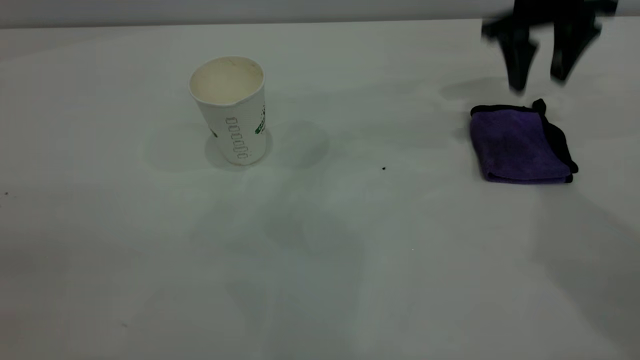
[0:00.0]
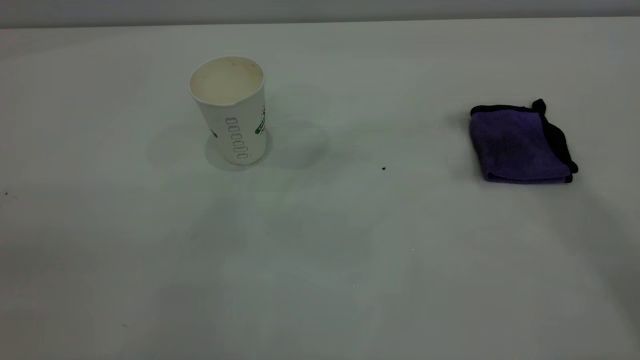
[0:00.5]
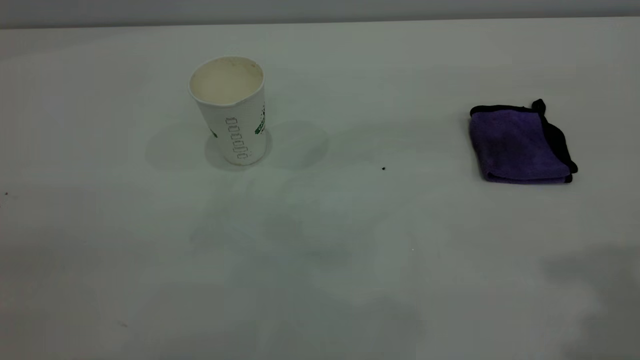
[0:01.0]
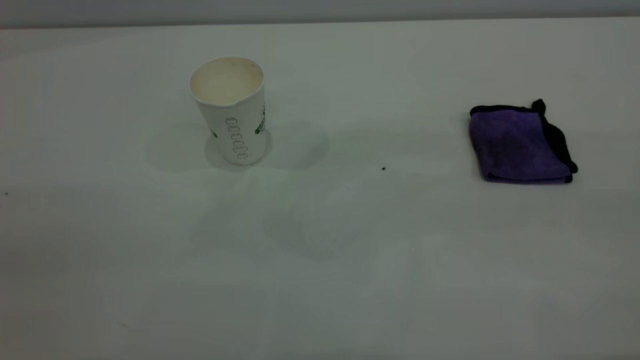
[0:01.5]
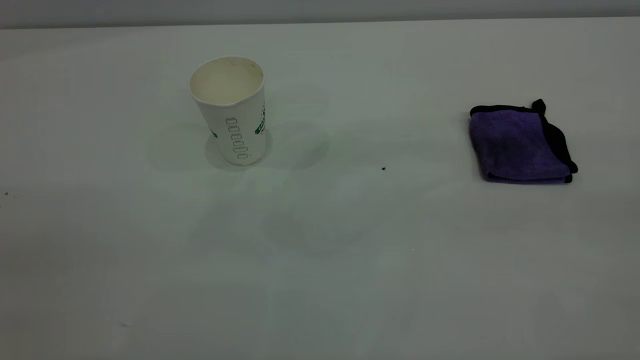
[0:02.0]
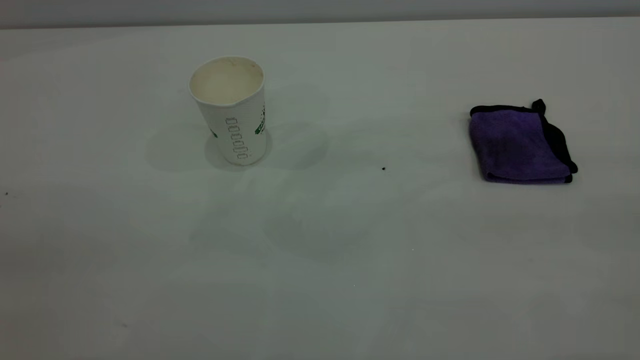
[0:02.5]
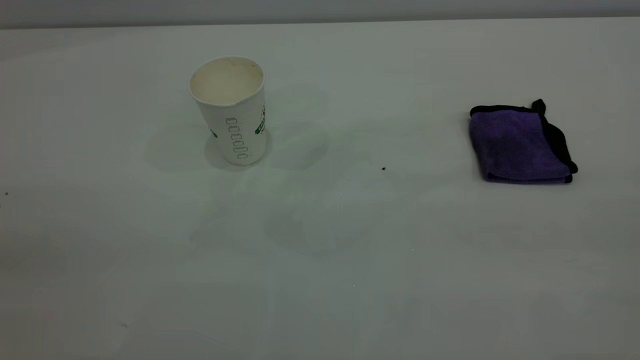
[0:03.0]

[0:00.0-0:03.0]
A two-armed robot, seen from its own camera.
Task of the whole recording: the left gripper pick up the fallen cup and place it upright, the right gripper grasp the purple rag and wipe the coffee stain on the table, the right gripper put the purple rag back in its original position.
0:00.0 to 0:01.5: The right gripper shifts approximately 40 cm backward.
